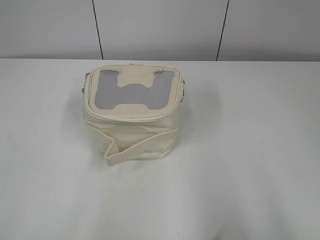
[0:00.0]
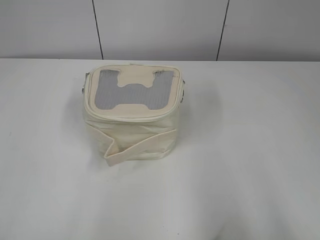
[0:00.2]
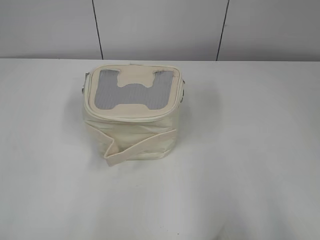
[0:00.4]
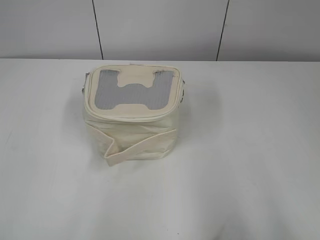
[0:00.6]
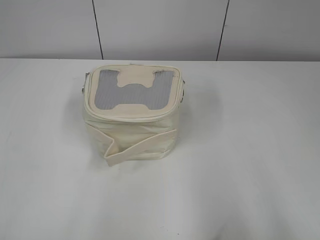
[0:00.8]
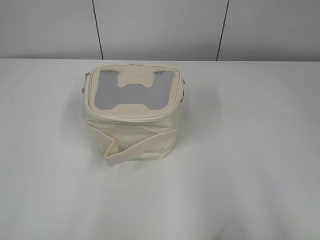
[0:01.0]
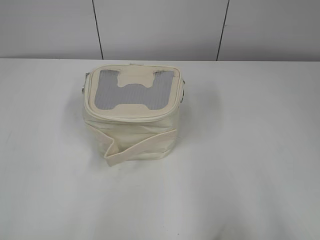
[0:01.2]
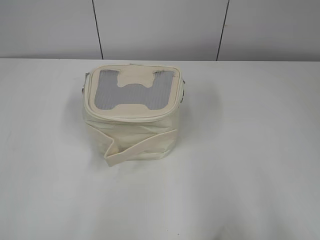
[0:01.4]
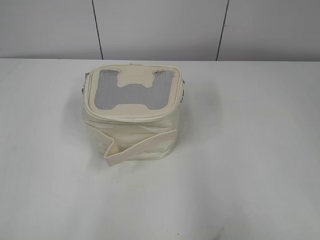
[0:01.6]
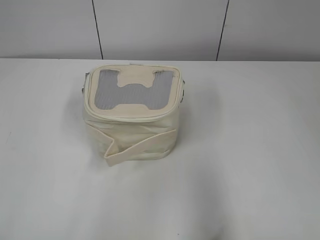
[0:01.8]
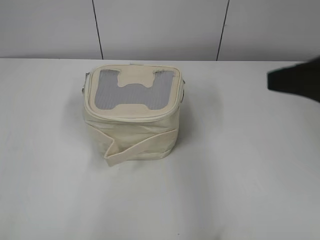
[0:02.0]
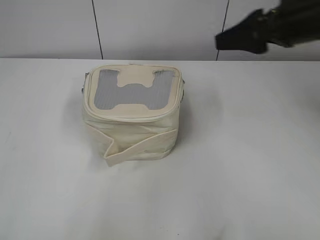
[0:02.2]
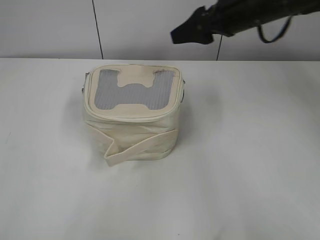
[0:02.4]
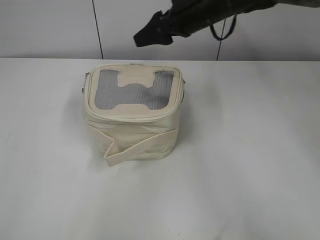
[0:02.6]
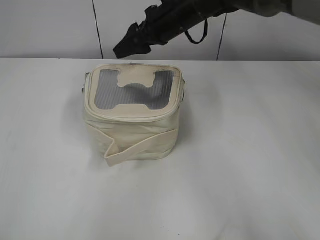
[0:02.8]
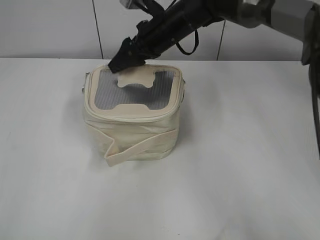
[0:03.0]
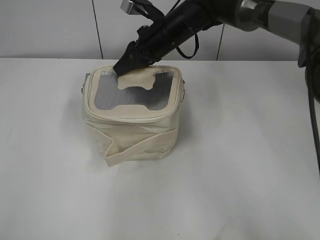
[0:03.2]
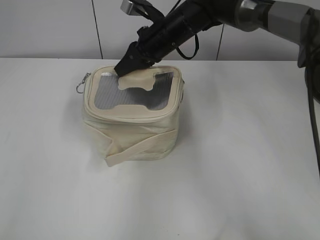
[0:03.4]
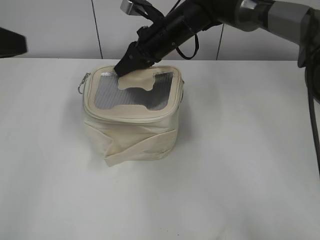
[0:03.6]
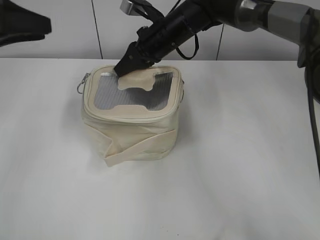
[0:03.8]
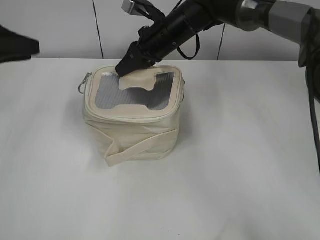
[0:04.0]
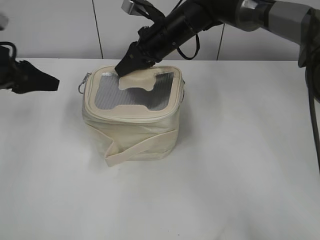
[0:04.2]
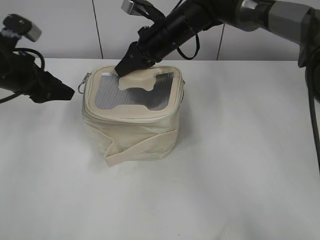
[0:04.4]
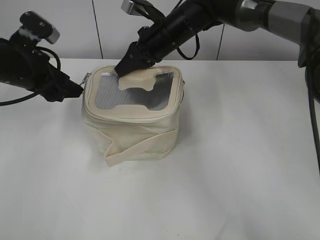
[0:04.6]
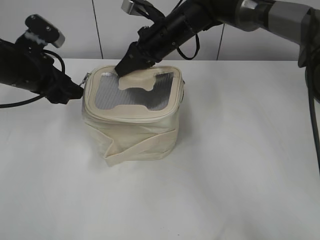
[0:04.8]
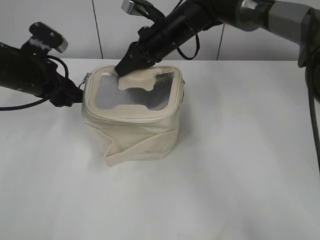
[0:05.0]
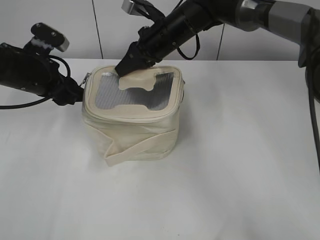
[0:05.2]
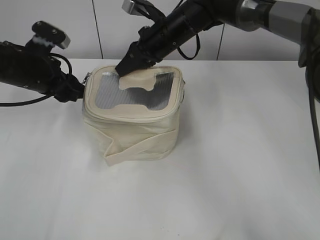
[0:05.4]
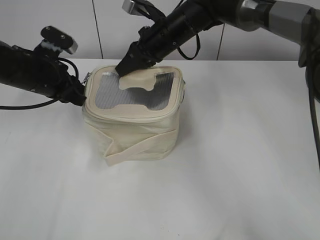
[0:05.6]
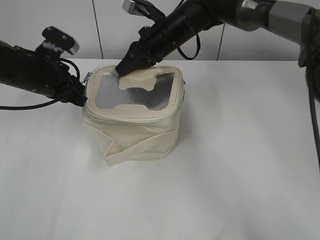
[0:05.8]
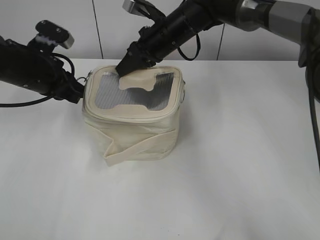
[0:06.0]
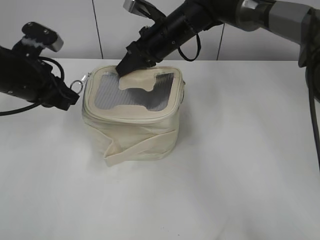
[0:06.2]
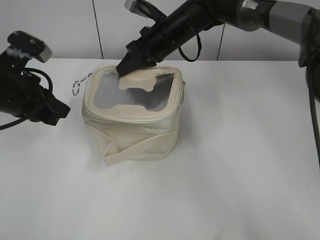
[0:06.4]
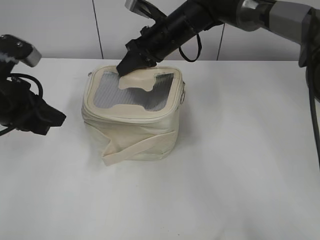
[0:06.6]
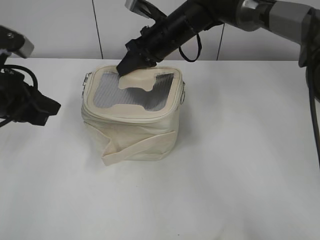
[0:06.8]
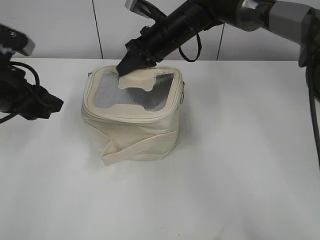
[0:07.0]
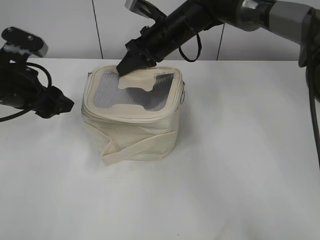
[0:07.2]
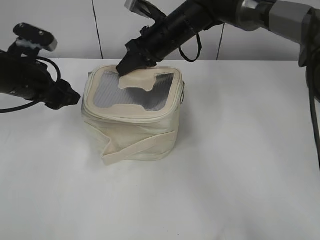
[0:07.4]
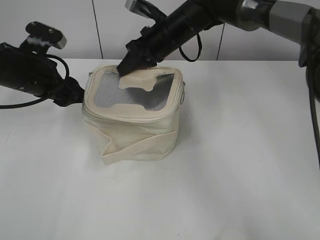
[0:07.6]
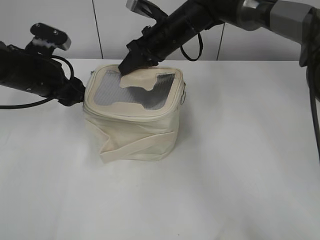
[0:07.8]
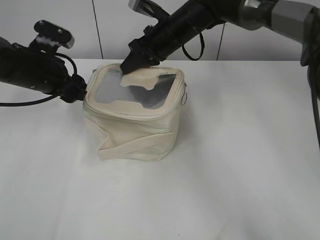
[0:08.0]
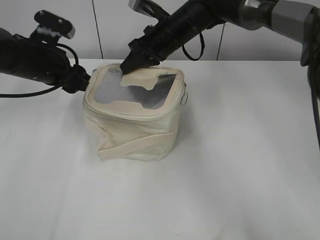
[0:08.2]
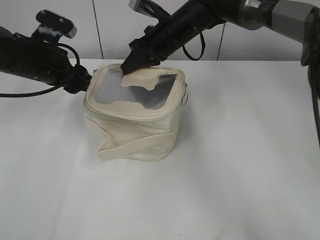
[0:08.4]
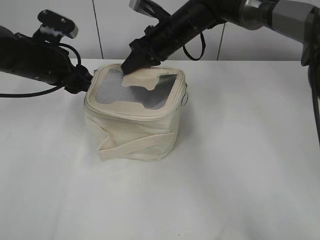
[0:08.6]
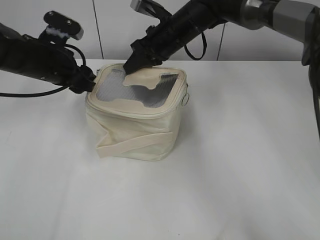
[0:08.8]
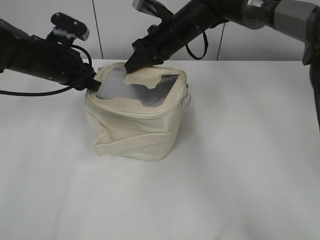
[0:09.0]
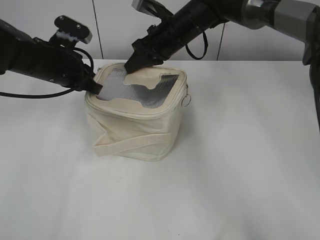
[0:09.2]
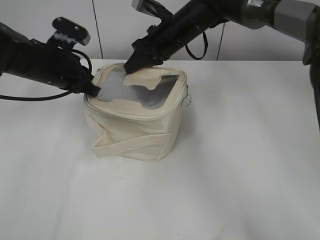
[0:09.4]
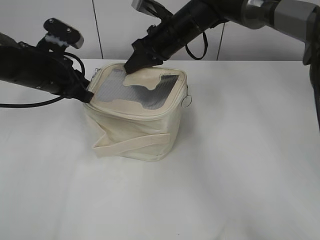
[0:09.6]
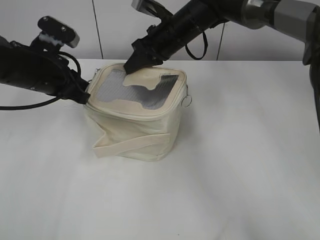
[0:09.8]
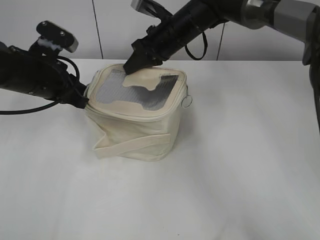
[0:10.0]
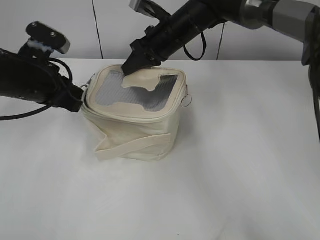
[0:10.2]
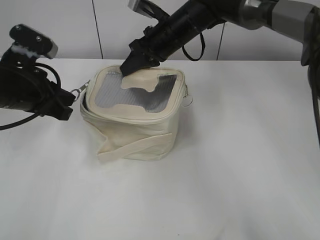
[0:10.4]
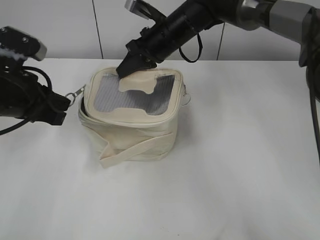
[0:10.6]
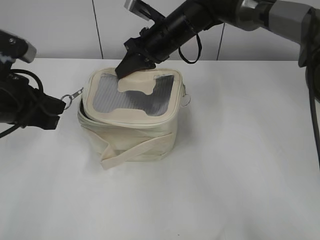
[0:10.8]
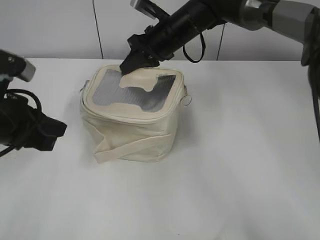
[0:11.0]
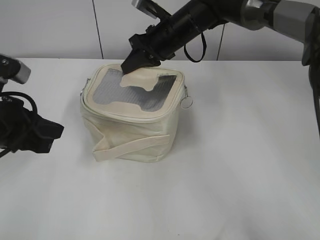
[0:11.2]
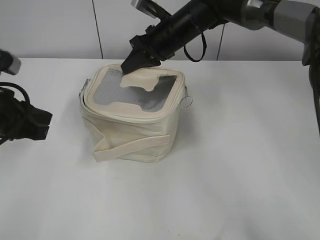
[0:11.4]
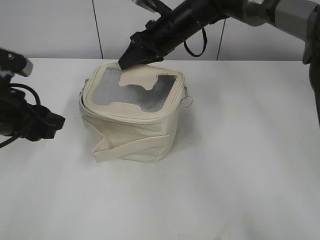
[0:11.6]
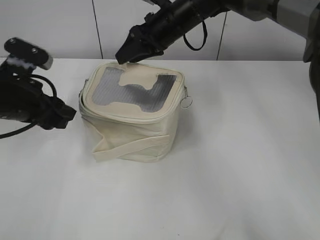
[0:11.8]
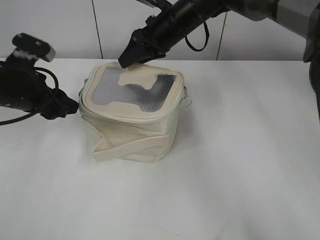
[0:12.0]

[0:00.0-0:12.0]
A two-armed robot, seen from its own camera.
0:01.6 to 0:03.0: The right gripper is displaced forward and to the left by about 50 cm.
0:03.0 to 0:04.4: The left gripper goes roughly 35 cm forward. Meanwhile the right gripper closes up.
0:04.4 to 0:06.0: The left gripper closes.
0:06.0 to 0:07.6: The left gripper travels backward and back again, roughly 10 cm each way, and opens.
0:07.6 to 0:09.0: The left gripper closes up.
0:09.0 to 0:10.4: The left gripper is displaced backward by roughly 10 cm, and closes its fingers.
0:10.4 to 0:12.0: The right gripper opens its fingers. The left gripper goes backward and returns, approximately 5 cm each way, and opens up.

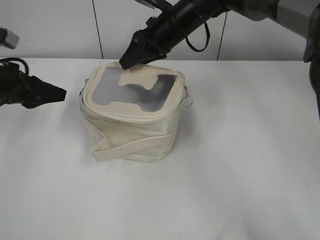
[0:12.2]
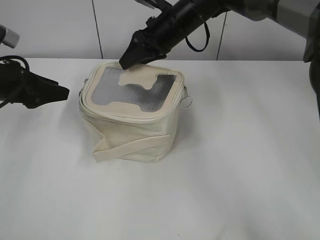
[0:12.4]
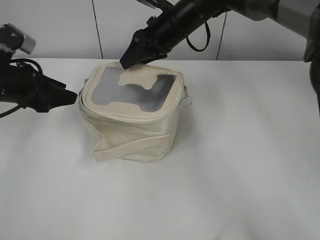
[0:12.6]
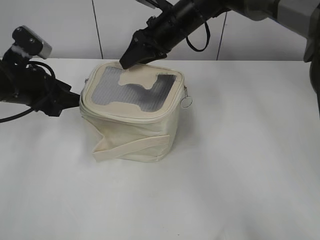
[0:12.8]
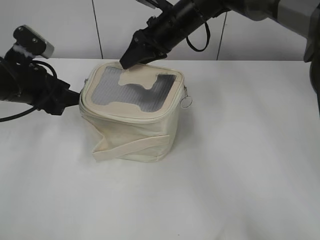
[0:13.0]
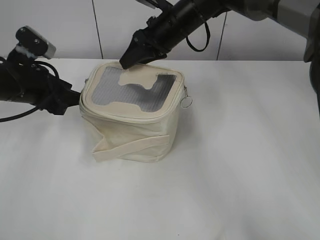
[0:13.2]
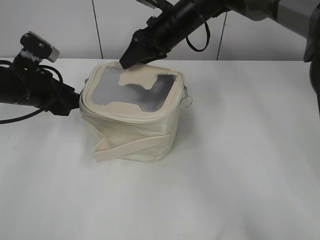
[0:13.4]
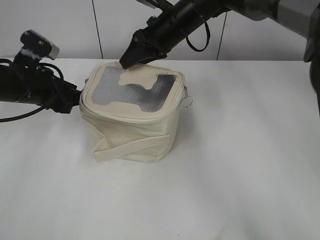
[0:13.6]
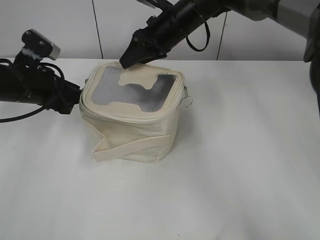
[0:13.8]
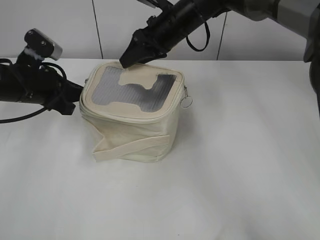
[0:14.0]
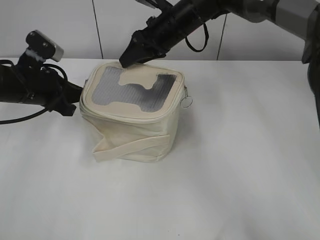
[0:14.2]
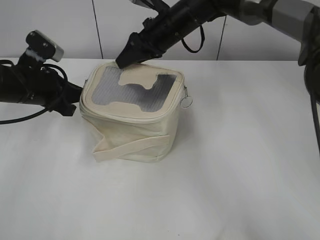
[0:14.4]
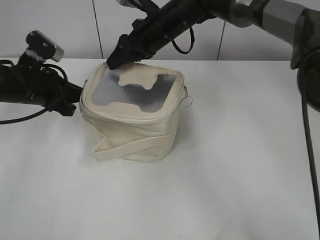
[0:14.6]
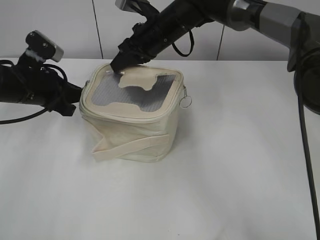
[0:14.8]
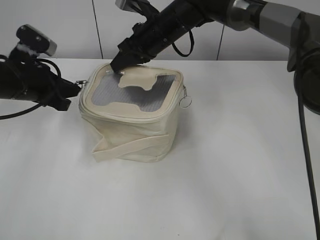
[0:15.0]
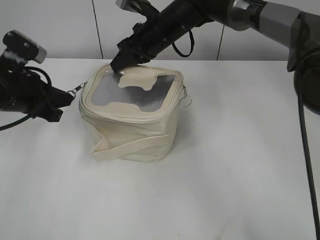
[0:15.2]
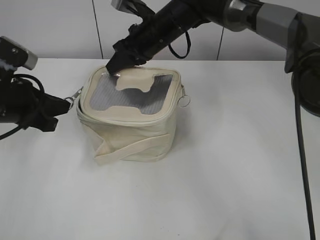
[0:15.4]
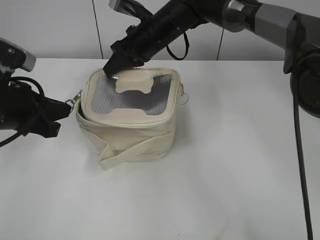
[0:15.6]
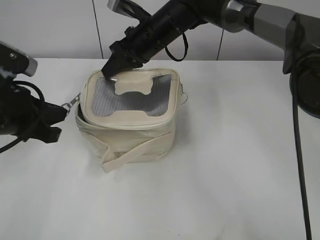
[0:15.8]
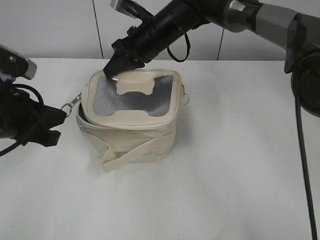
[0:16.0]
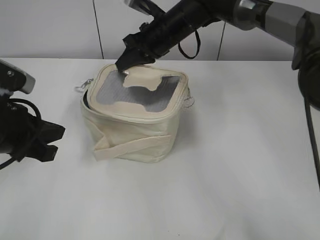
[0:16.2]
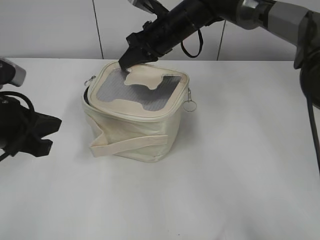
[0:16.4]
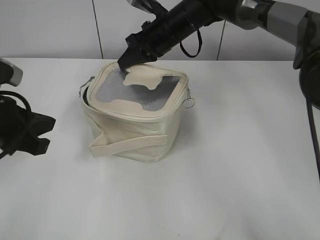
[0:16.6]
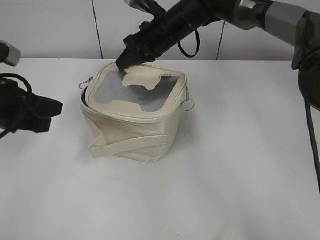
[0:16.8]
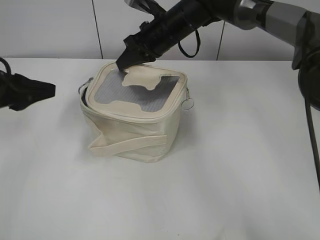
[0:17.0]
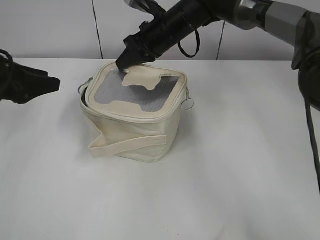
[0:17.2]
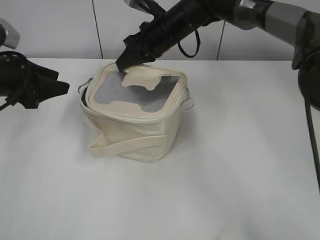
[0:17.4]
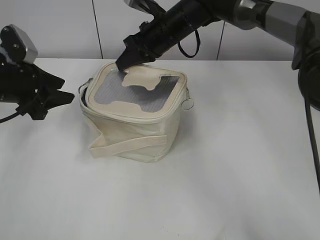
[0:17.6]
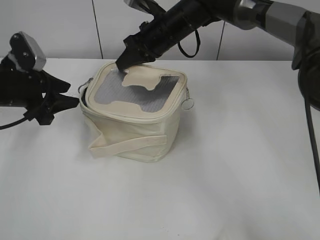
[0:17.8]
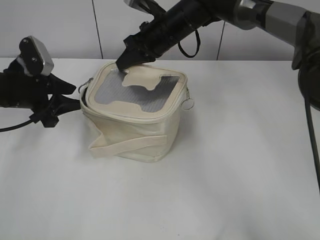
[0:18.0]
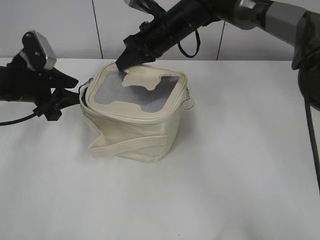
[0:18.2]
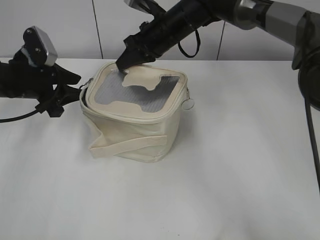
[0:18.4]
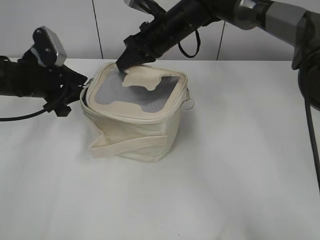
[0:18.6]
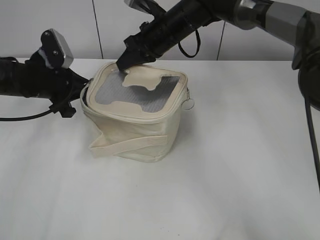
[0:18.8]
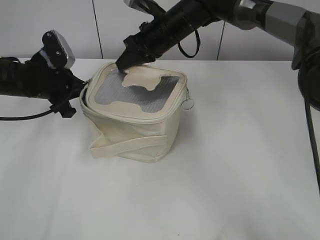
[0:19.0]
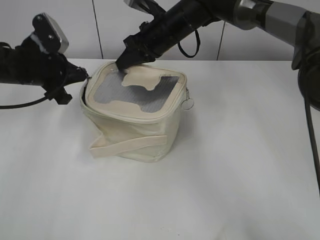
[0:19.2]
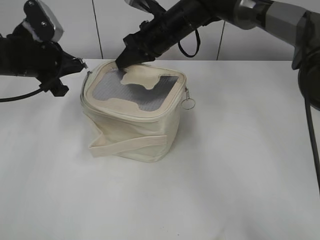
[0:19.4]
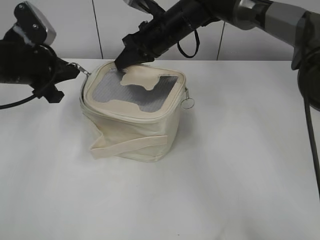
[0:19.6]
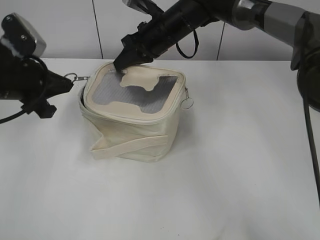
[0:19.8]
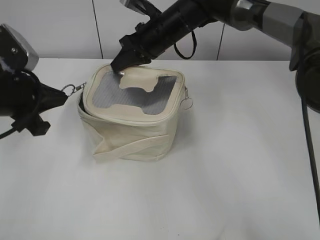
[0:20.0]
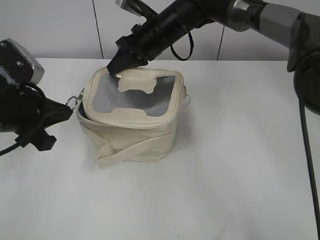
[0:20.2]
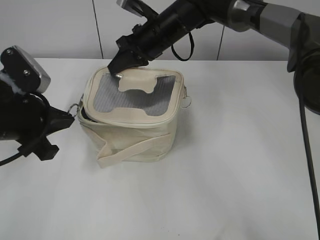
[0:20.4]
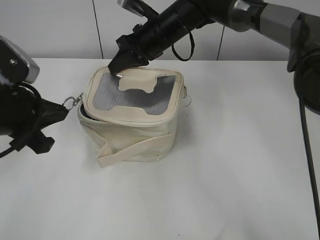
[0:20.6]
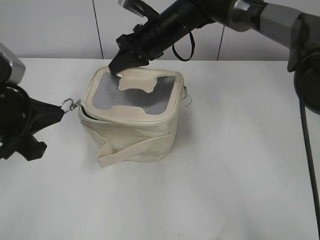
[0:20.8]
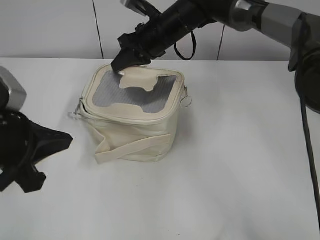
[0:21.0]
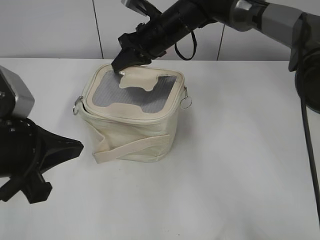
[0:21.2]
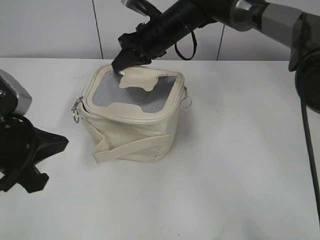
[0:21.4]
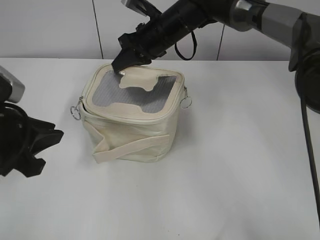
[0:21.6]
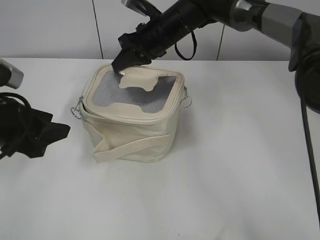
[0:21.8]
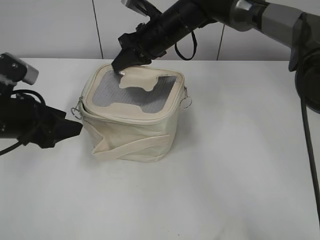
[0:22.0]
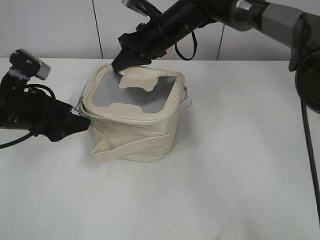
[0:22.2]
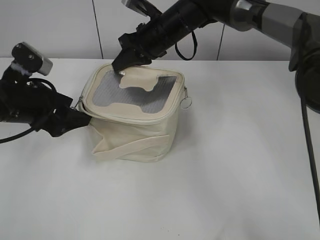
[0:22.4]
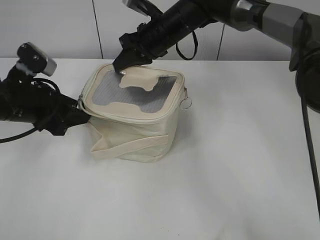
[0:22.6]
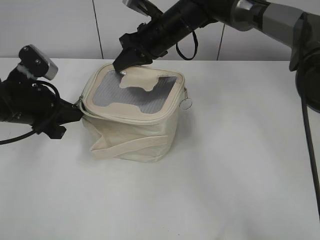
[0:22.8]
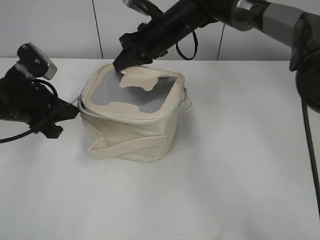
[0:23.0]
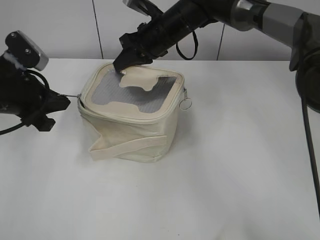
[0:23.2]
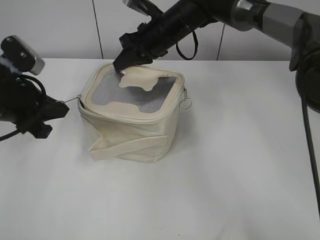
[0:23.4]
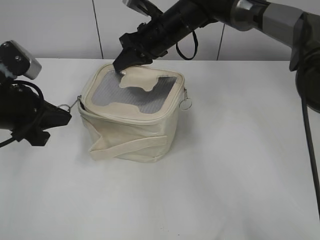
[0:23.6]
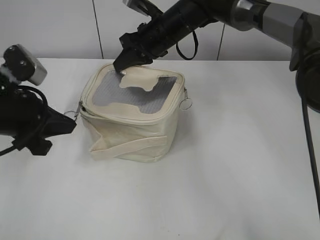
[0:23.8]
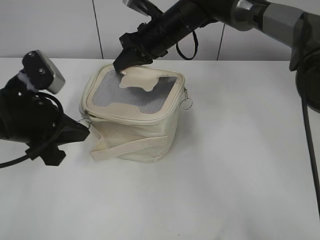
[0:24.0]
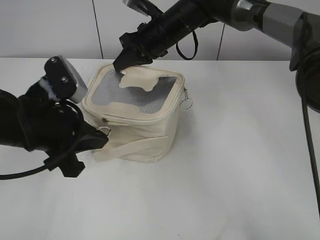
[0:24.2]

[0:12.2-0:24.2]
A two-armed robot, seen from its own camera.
0:12.2 to 0:13.8: There are only small adjustments of the grippers.
0:13.8 to 0:15.2: The left gripper closes its fingers; the right gripper closes.
0:15.2 to 0:16.6: The left gripper is displaced backward by some 10 cm.
0:16.6 to 0:18.2: The left gripper heads forward, covering some 15 cm, and opens its fingers.
0:18.2 to 0:19.8: The left gripper ends up some 5 cm from where it was, and closes.
0:19.8 to 0:21.2: The left gripper shifts approximately 15 cm backward.
0:21.2 to 0:22.6: The left gripper is displaced forward by roughly 10 cm, and opens up.
0:22.6 to 0:24.2: The left gripper shifts about 10 cm backward and to the right, and closes.
